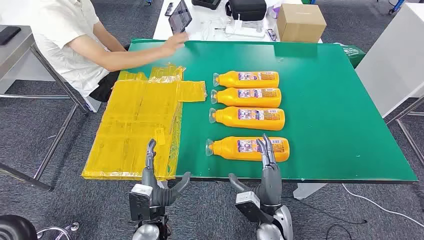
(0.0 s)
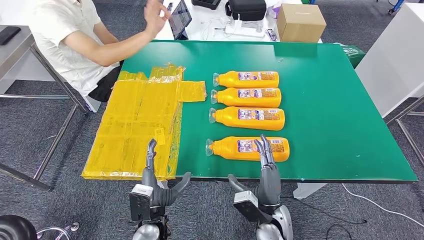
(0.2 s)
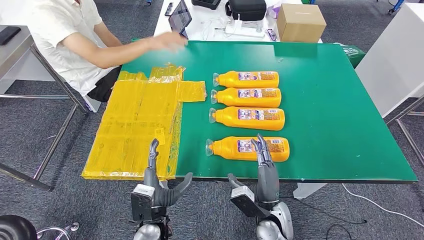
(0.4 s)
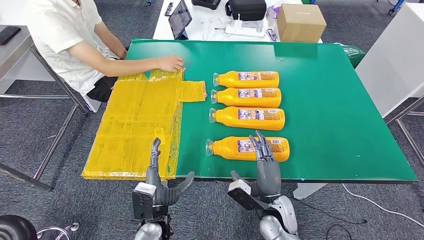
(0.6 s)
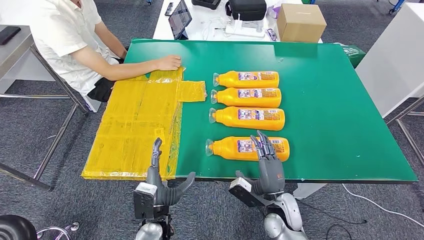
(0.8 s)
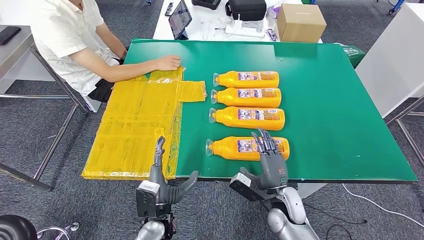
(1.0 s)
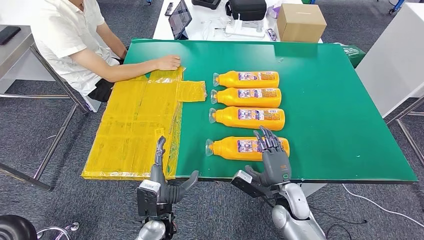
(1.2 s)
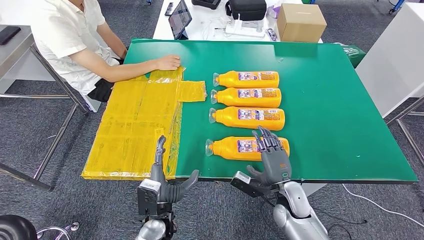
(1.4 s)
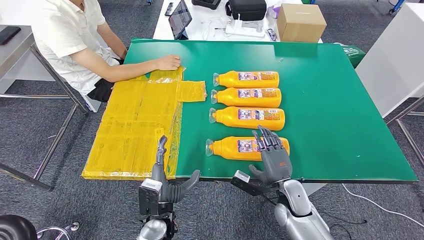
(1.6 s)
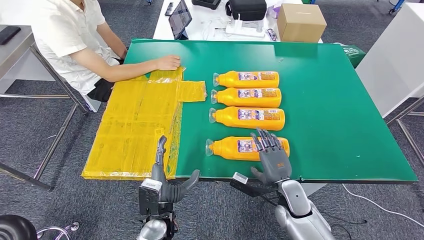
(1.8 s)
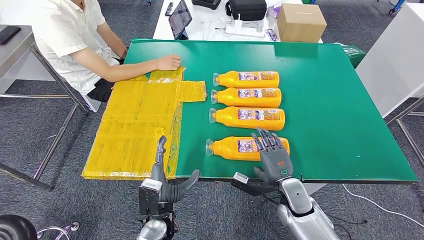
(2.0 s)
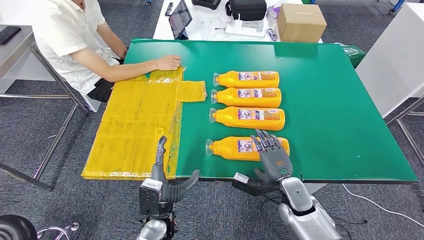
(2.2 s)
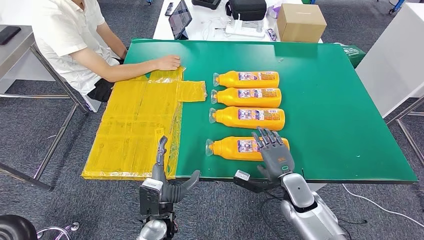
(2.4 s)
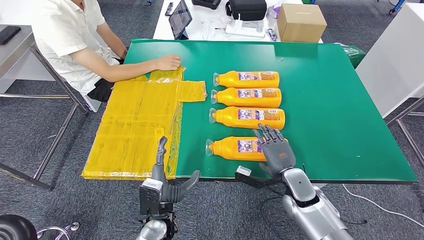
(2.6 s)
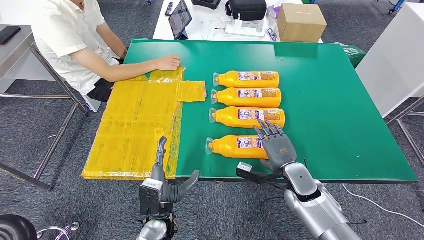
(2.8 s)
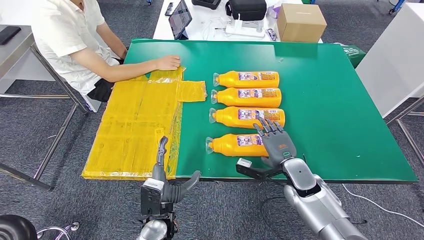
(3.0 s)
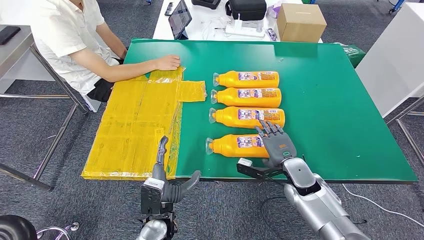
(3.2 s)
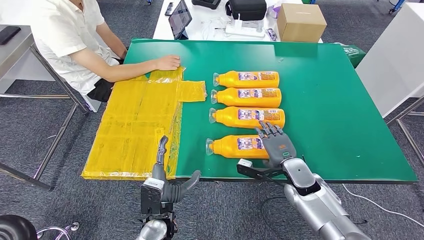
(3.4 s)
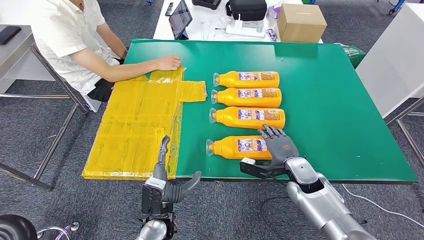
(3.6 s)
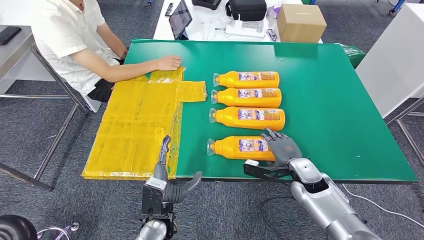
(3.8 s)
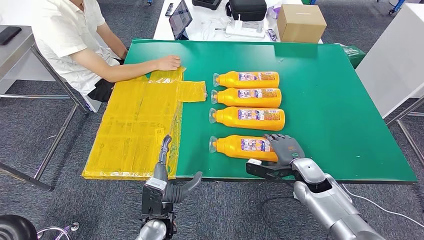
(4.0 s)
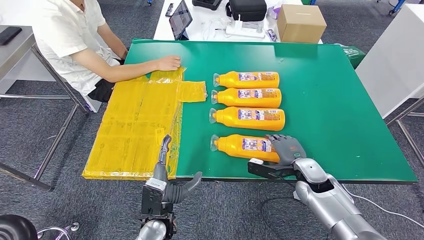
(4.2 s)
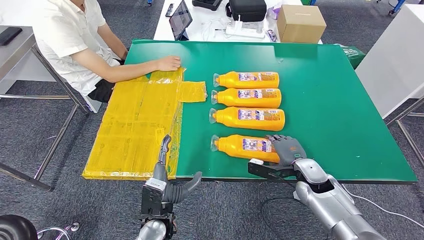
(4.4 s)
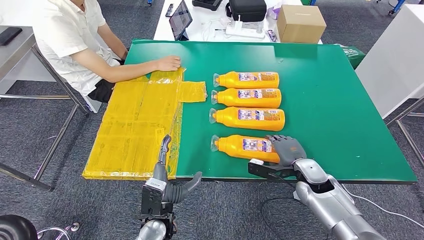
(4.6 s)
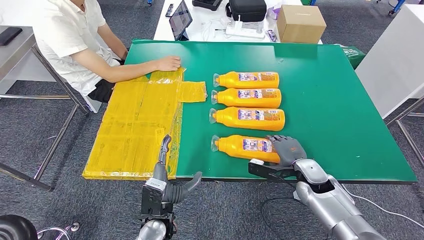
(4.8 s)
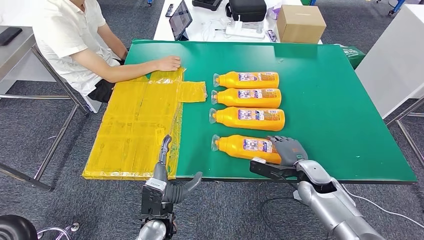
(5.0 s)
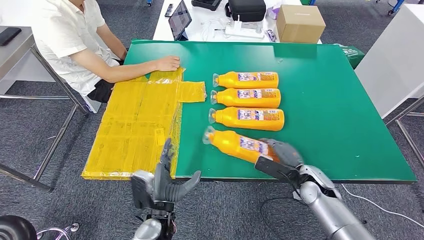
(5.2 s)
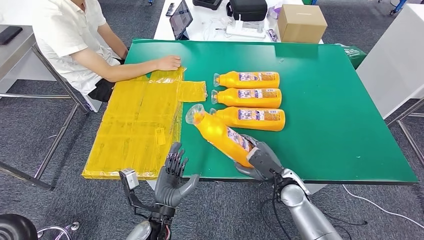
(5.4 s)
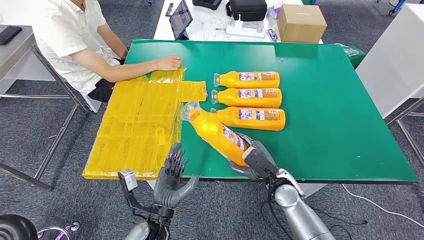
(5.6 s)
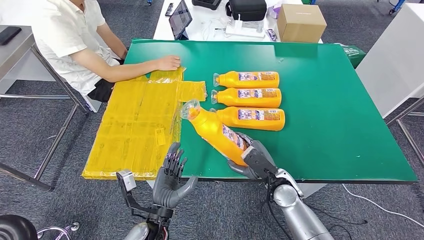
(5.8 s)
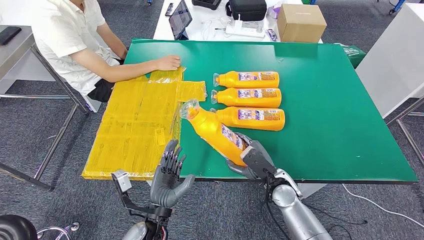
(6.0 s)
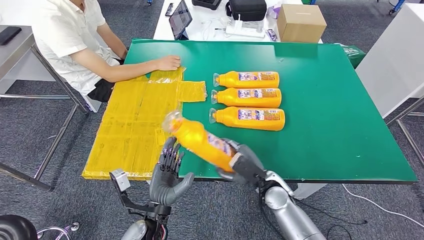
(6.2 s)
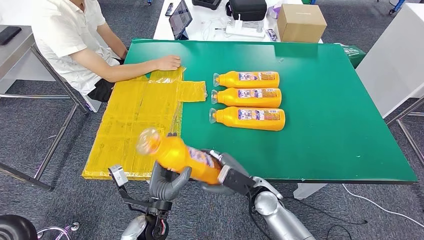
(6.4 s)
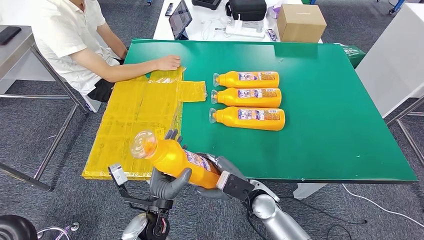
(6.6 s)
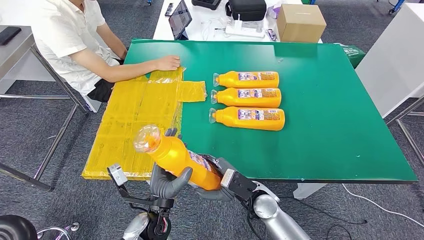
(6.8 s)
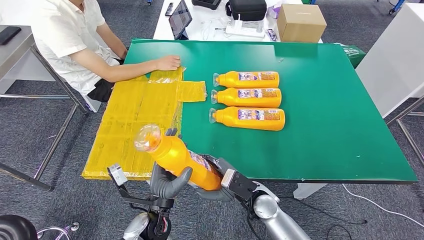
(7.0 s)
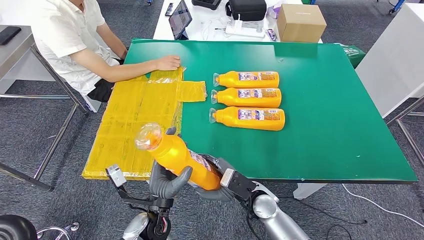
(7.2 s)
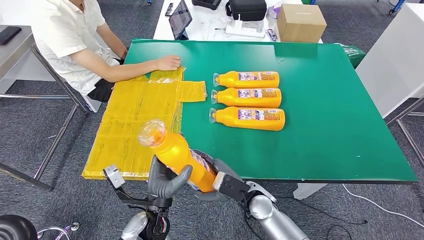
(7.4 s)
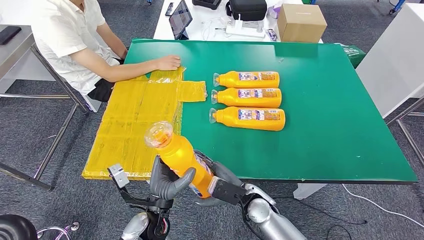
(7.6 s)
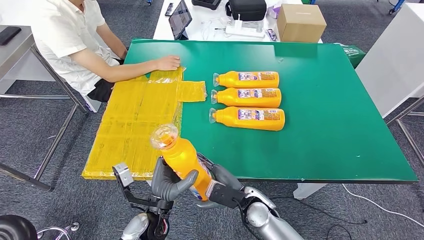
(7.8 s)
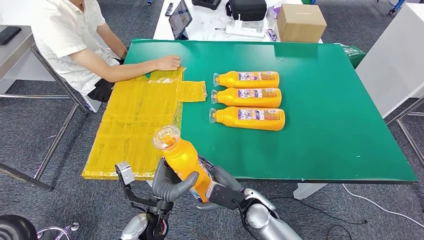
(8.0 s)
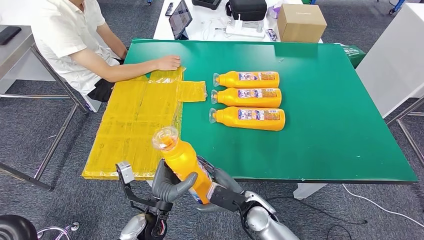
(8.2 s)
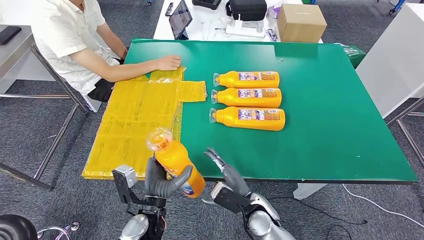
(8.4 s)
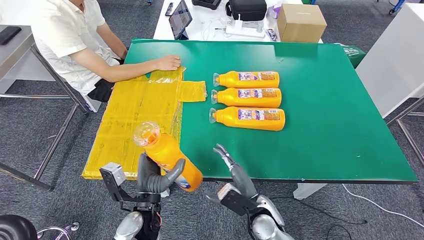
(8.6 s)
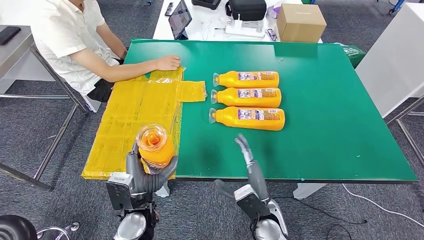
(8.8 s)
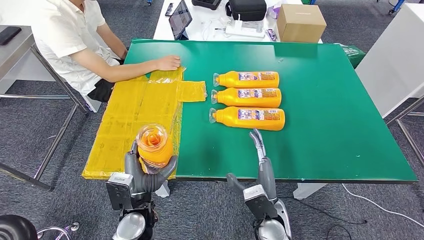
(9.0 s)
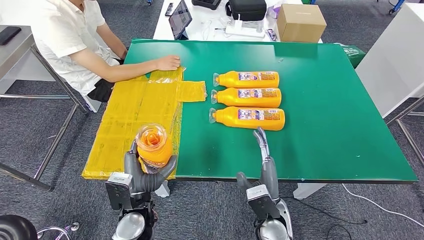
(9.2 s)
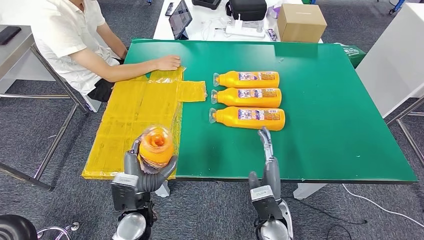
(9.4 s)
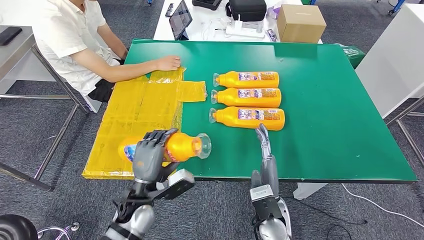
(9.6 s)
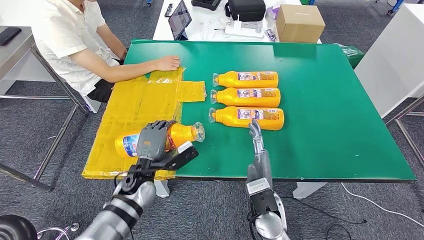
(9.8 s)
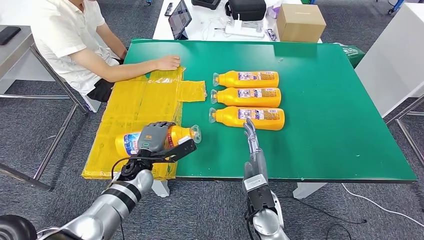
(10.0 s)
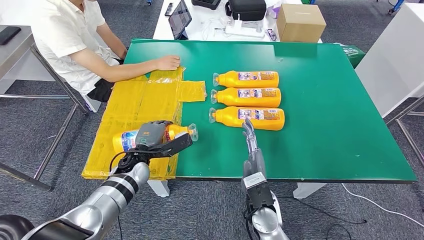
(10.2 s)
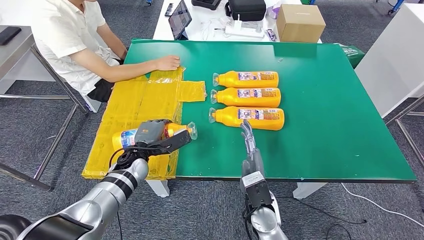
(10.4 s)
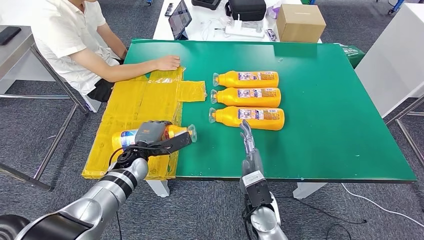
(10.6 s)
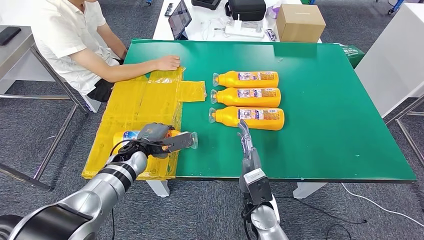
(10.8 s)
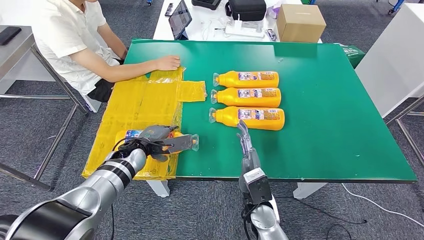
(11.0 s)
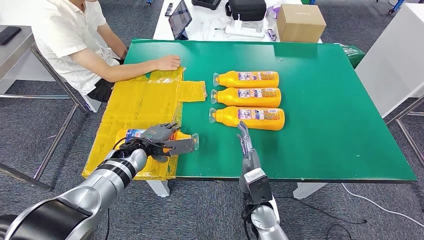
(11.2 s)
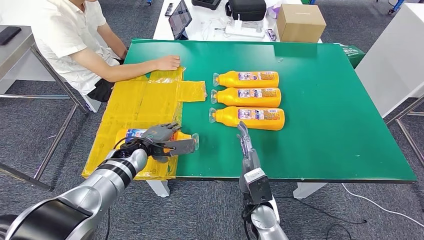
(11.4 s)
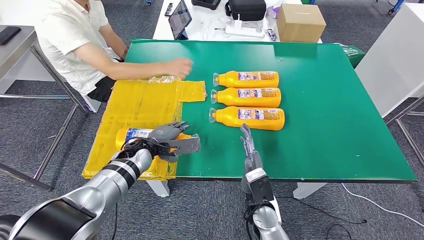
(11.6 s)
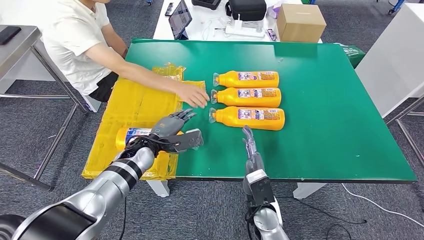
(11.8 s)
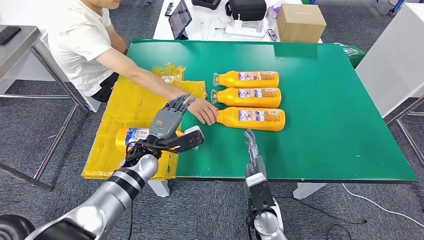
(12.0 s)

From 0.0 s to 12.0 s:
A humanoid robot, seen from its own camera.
Step, from 0.0 s to 6.0 s: Take the bottle from the table.
Step, from 6.4 s to 11.8 s: Flip the bottle to face forward.
From 1.6 s to 3.0 s: The right hand shifts by approximately 5 cm.
From 3.0 s to 4.4 s: The hands make only small movements.
From 4.4 s to 6.0 s: The right hand moves to the left, roughly 10 cm.
From 6.0 s to 7.6 s: The right hand goes some 5 cm to the left.
From 7.6 s to 9.0 s: The right hand moves roughly 5 cm.
From 9.0 s to 10.4 s: The left hand is displaced forward by some 15 cm.
From 10.4 s to 12.0 s: The left hand changes place by approximately 5 cm.

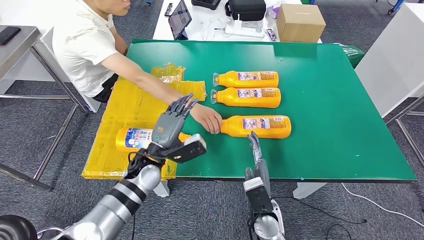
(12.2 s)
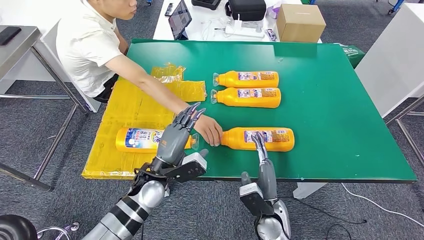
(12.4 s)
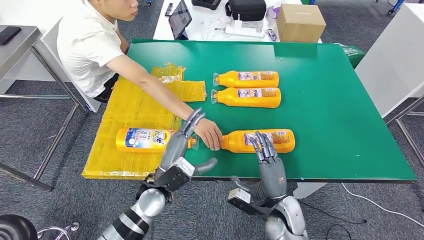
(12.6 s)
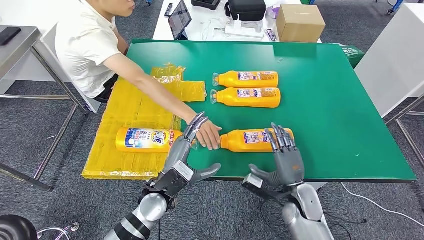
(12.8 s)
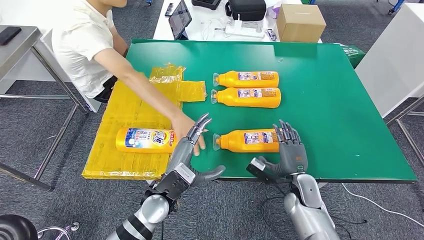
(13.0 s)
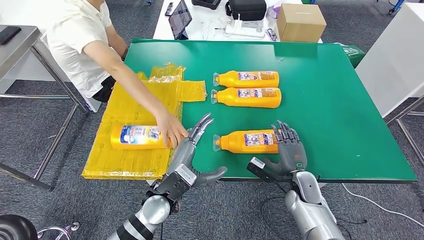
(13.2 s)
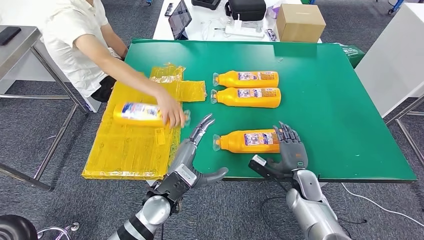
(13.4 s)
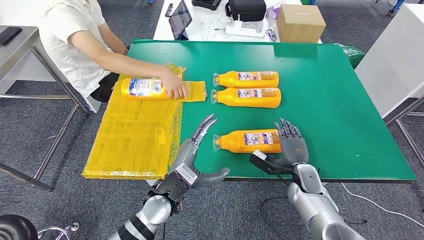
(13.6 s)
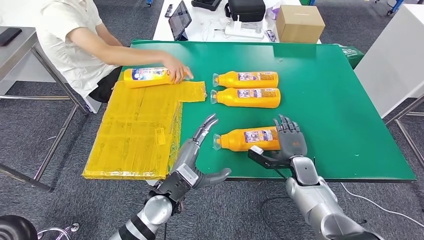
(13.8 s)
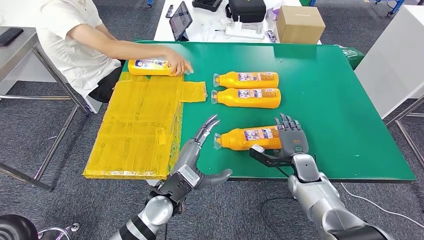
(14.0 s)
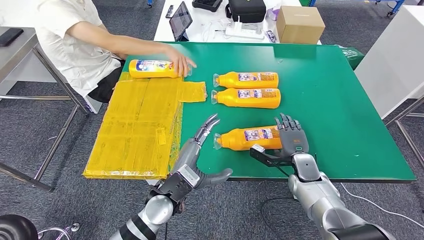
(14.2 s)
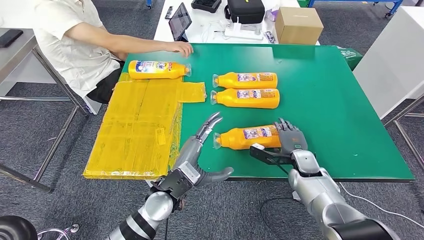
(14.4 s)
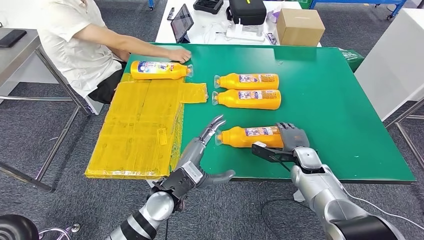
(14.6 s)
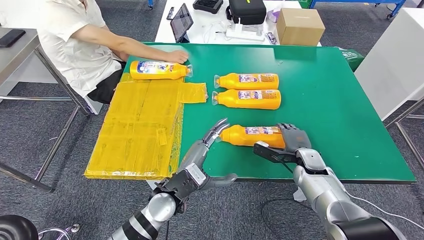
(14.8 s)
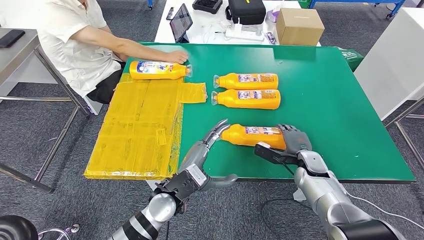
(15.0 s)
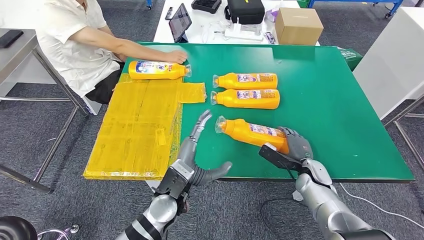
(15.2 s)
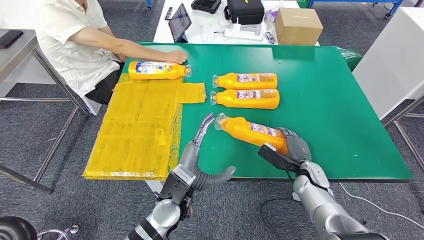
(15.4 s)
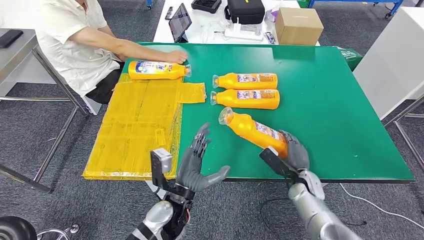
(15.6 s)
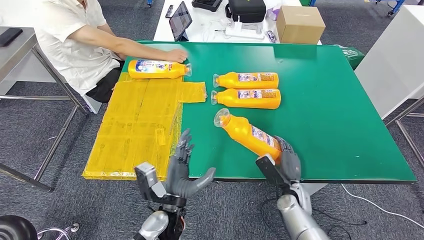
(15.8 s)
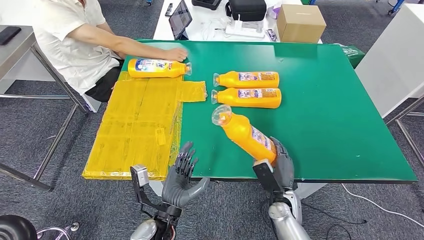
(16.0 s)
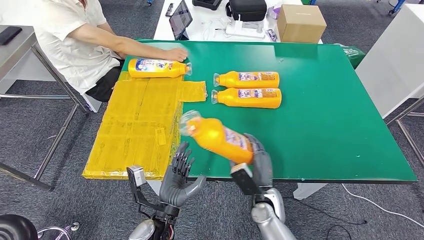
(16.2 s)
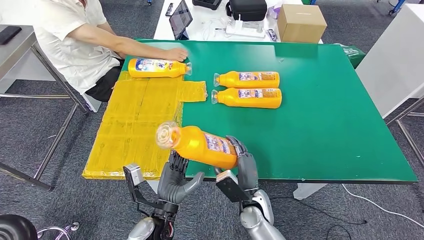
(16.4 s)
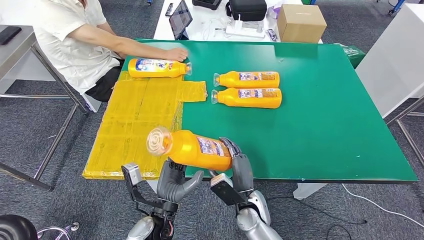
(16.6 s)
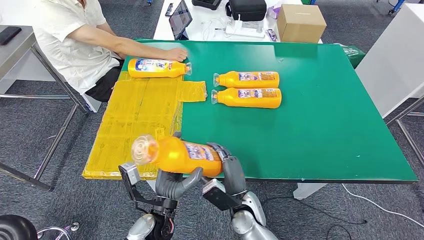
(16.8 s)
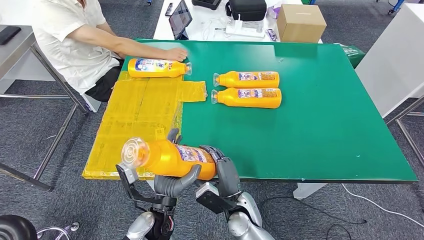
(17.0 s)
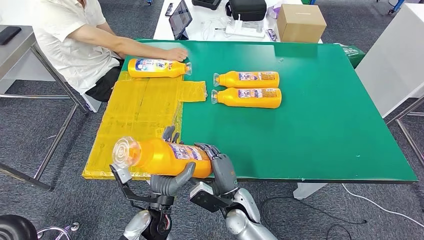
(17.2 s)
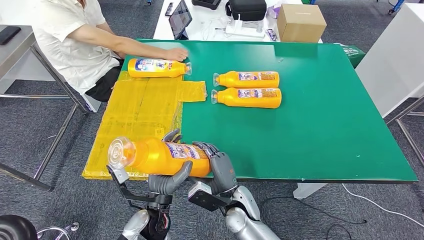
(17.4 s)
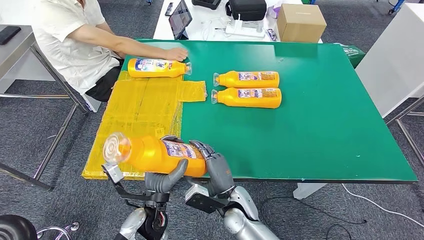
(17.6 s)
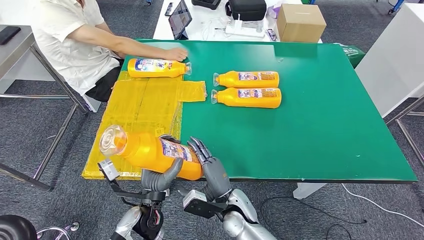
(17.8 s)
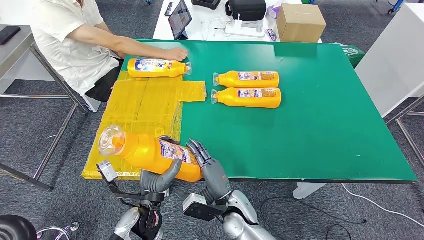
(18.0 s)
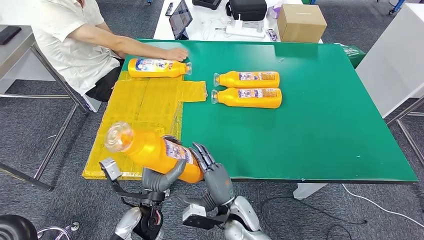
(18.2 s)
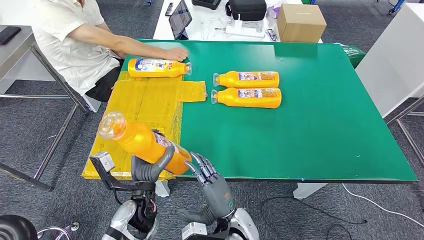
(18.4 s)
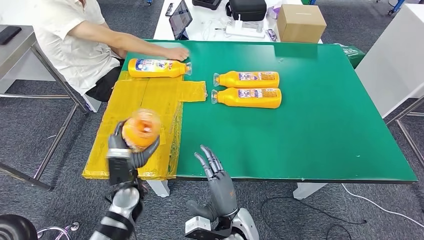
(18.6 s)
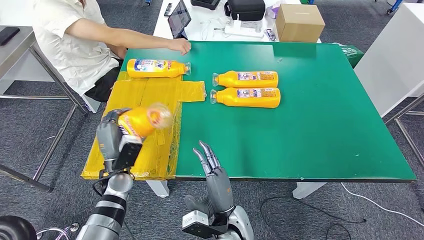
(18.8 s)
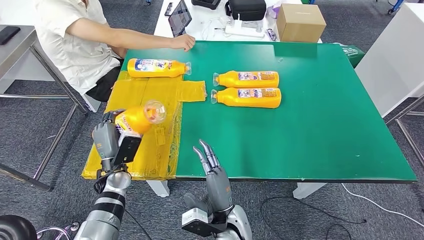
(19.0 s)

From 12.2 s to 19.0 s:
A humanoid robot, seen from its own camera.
Step, from 12.2 s to 16.4 s: Pick up the bottle from the table.
From 16.2 s to 17.6 s: The right hand goes some 10 cm to the left.
From 17.6 s to 19.0 s: The left hand is displaced to the left and forward by about 15 cm.
